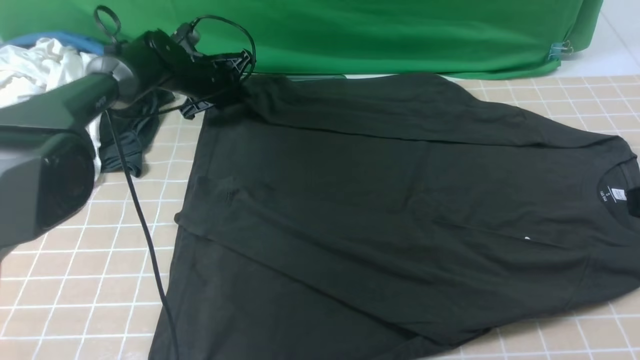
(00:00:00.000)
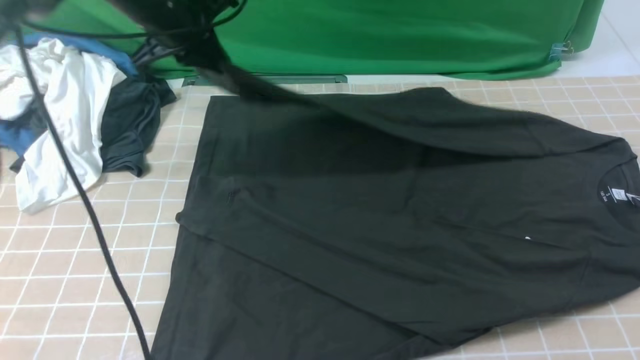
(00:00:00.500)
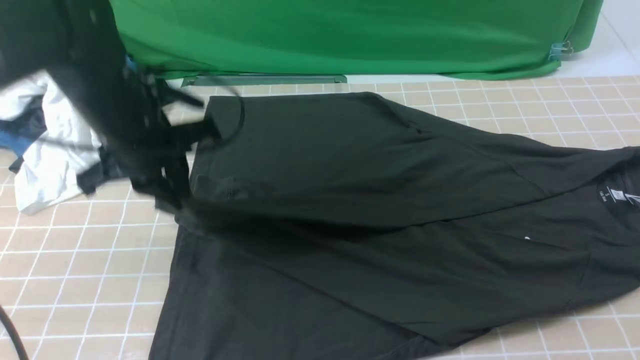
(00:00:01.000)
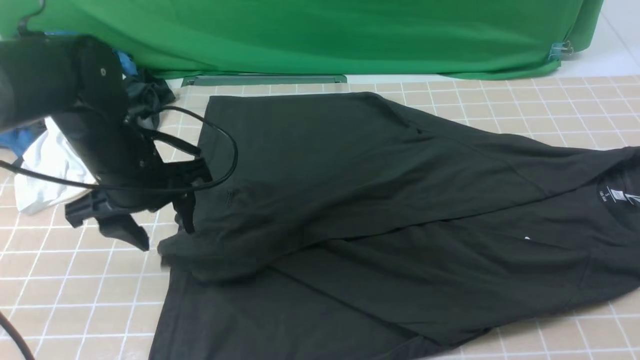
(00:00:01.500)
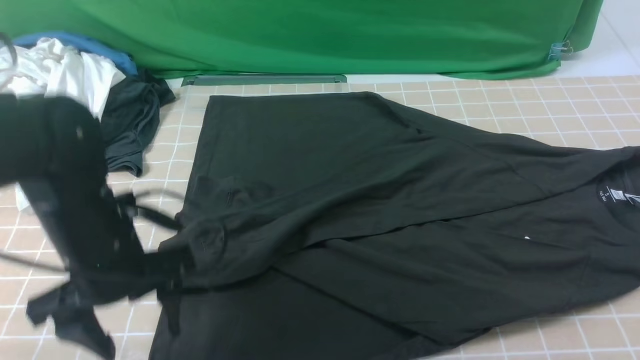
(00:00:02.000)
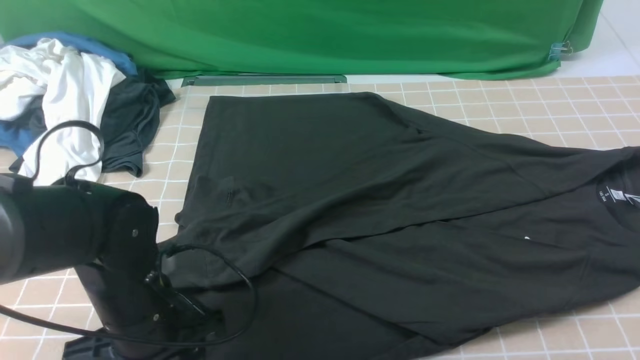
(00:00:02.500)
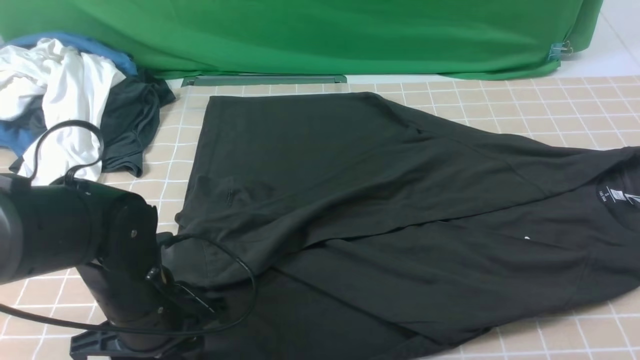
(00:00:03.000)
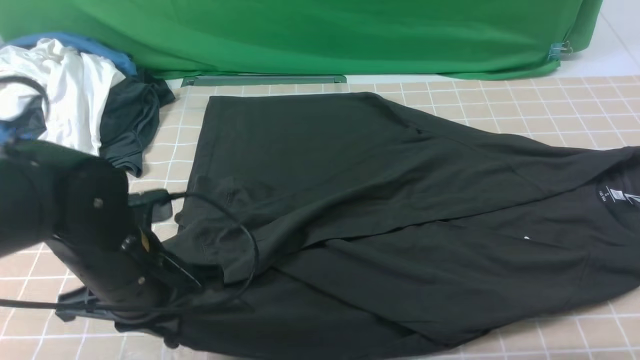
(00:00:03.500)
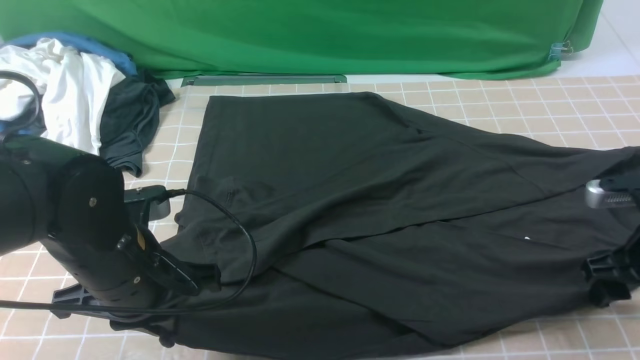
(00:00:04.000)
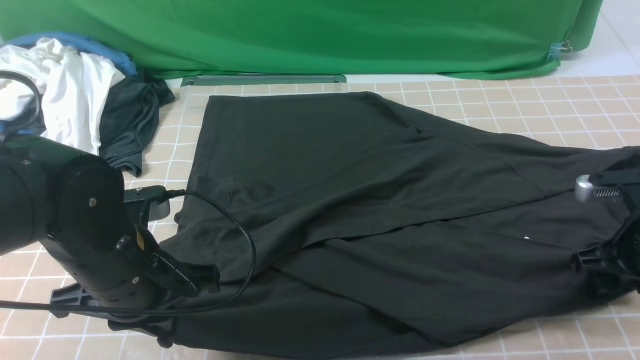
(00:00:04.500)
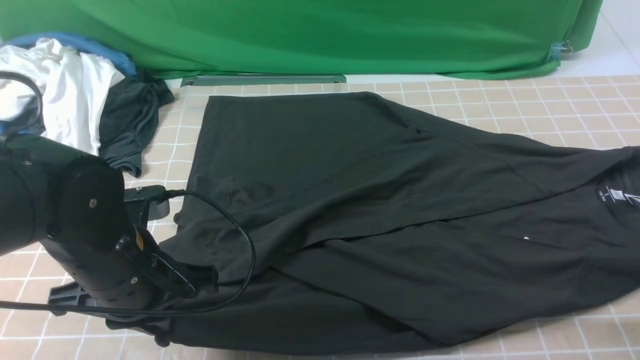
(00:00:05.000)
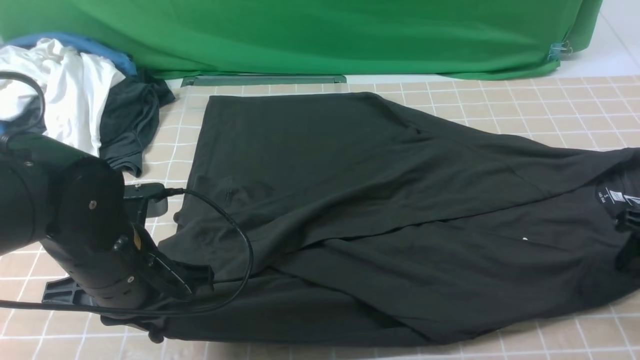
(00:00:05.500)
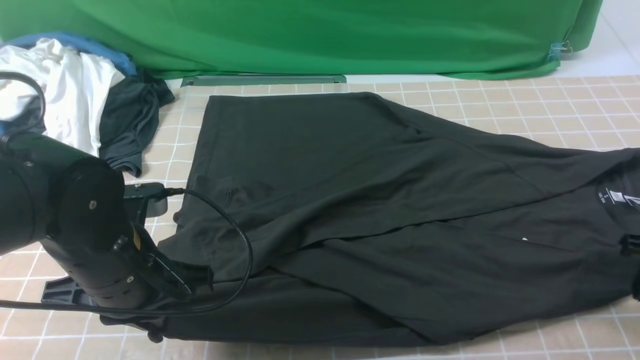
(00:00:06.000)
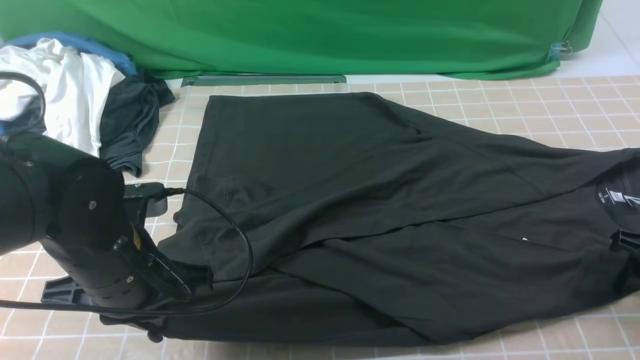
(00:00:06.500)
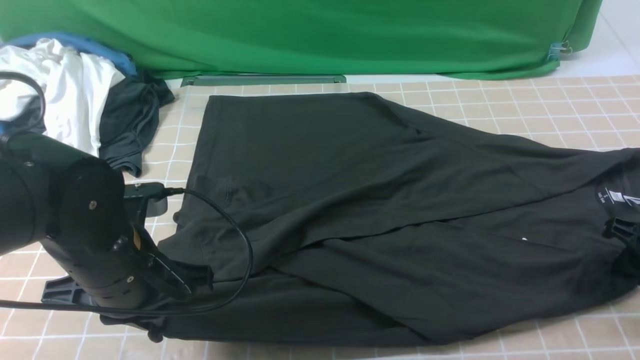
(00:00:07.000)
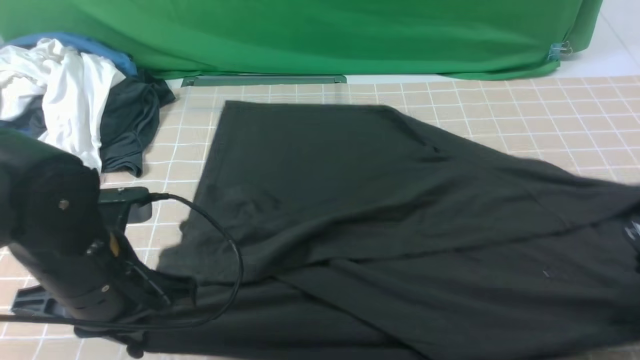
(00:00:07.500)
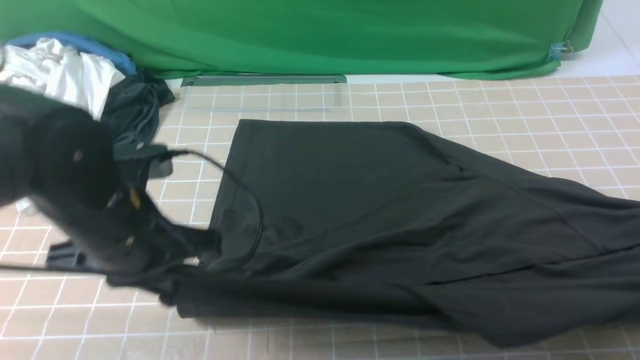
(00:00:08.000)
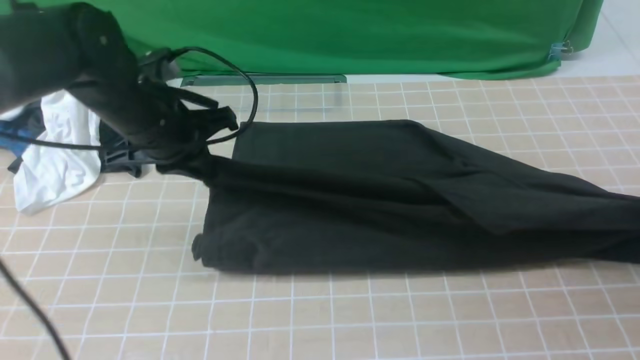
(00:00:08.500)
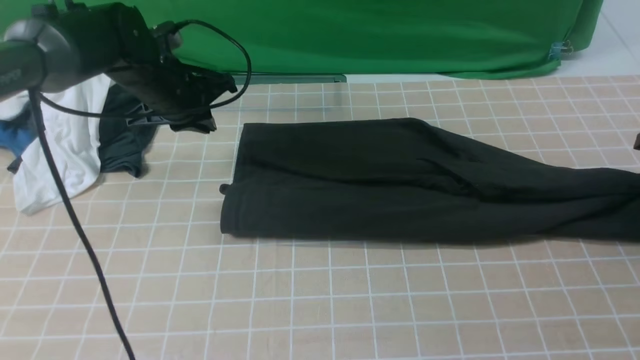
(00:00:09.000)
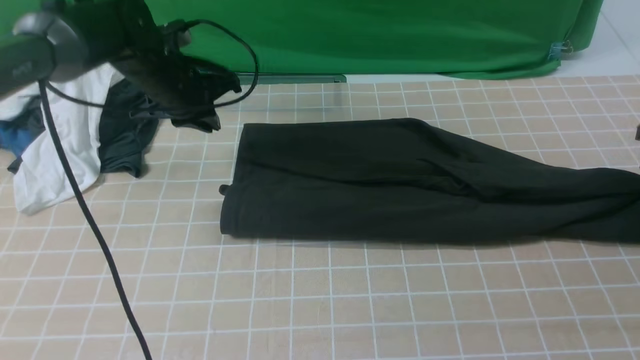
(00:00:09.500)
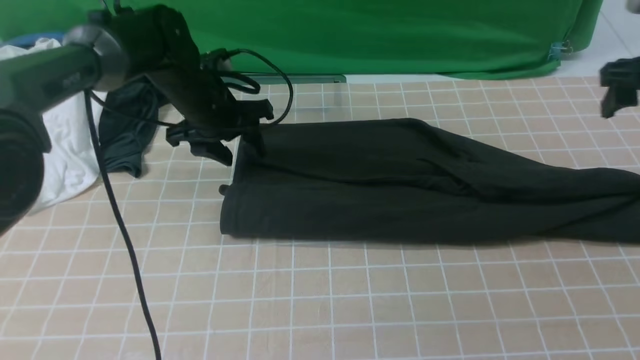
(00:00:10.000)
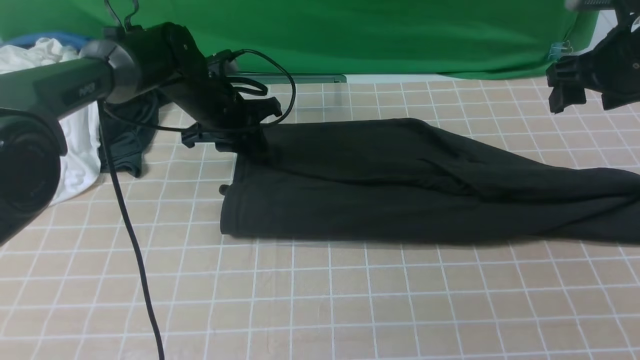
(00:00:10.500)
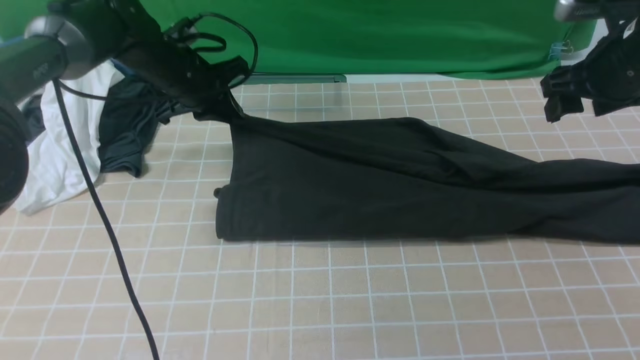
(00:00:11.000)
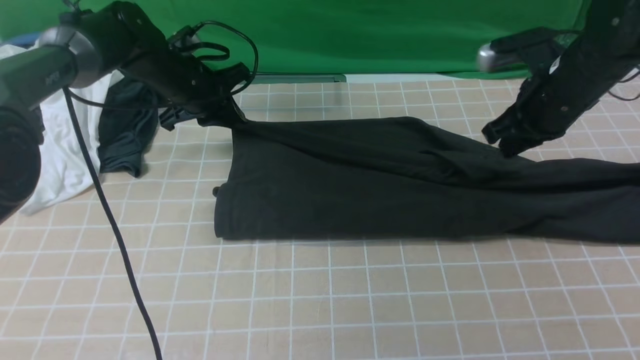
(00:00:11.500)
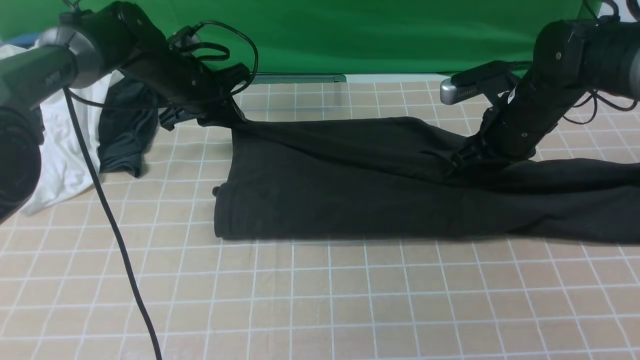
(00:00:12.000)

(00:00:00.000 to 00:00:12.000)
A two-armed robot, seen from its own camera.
Step, 00:00:00.000 - 00:00:01.500: use the left arm to drag and drop the cuff onto the cuff closest to the left arm.
Step, 00:00:02.000 - 00:00:07.000: use both arms simultaneously to clamp the lower edge of the clothing fabric.
00:00:00.000 - 00:00:02.000: The left gripper shifts some 30 cm backward, and opens up.
00:00:02.000 - 00:00:04.000: The right gripper travels downward and forward by about 15 cm, and opens up; the left gripper closes.
00:00:04.000 - 00:00:06.000: The right gripper ends up some 5 cm from where it was, and closes, then reopens.
00:00:06.000 - 00:00:08.000: The right gripper is displaced upward by about 5 cm, and closes.
00:00:08.000 - 00:00:10.000: The right gripper moves forward and upward, some 20 cm, and opens, while the left gripper heads forward, covering approximately 20 cm, and opens.
00:00:10.000 - 00:00:12.000: The right gripper travels to the left and downward by roughly 15 cm, and closes up; the left gripper shifts by approximately 5 cm, and closes up.

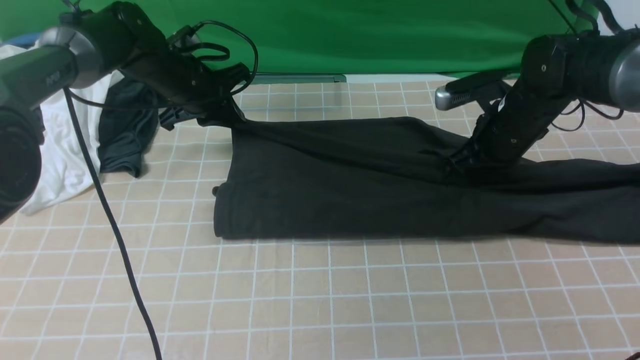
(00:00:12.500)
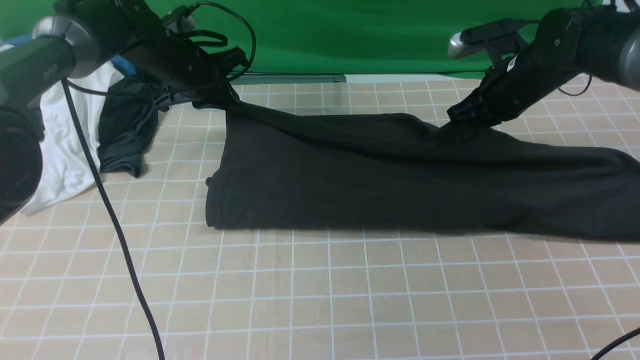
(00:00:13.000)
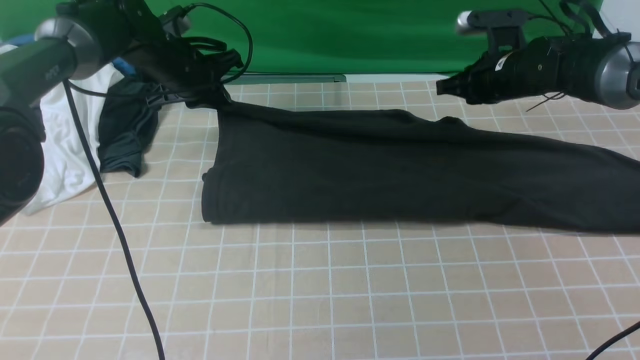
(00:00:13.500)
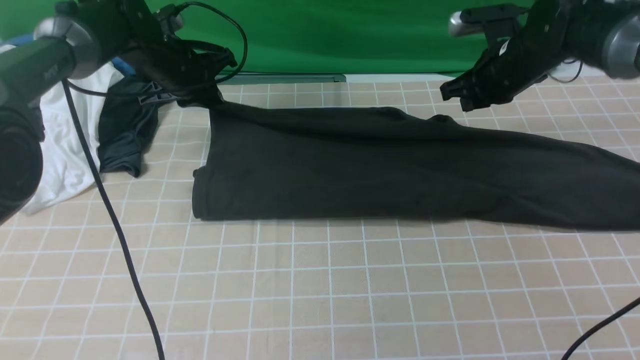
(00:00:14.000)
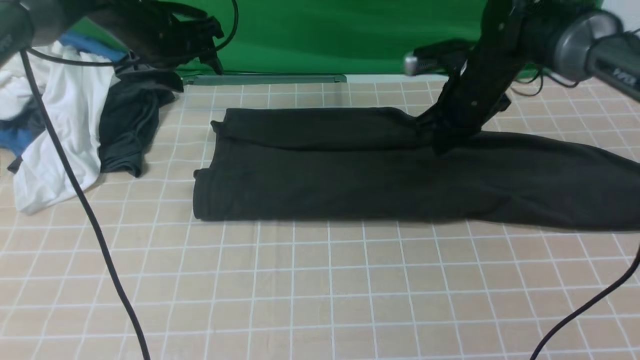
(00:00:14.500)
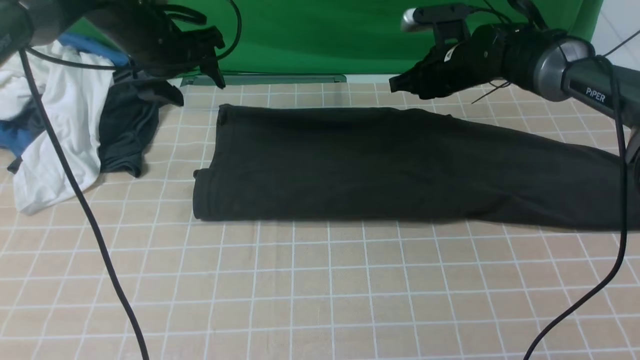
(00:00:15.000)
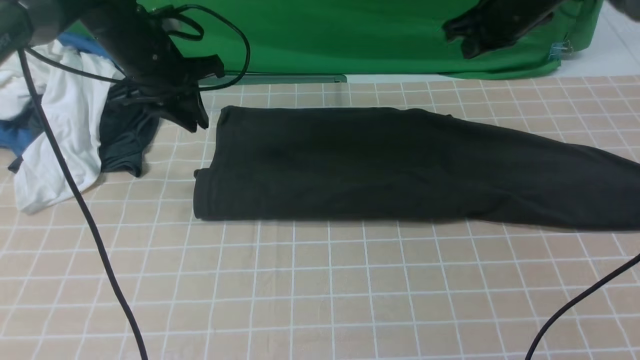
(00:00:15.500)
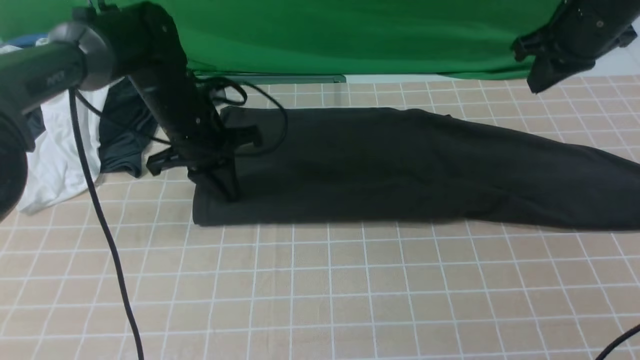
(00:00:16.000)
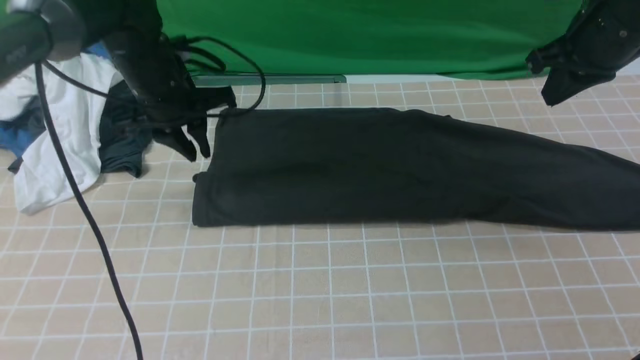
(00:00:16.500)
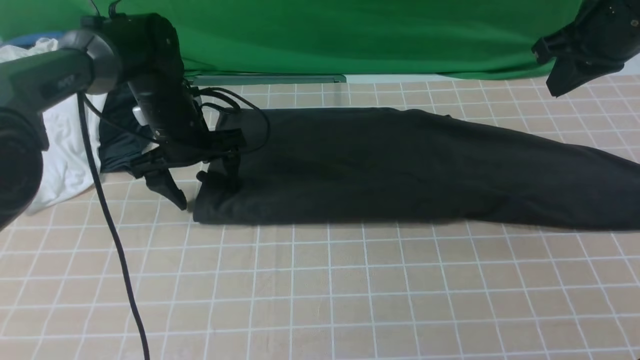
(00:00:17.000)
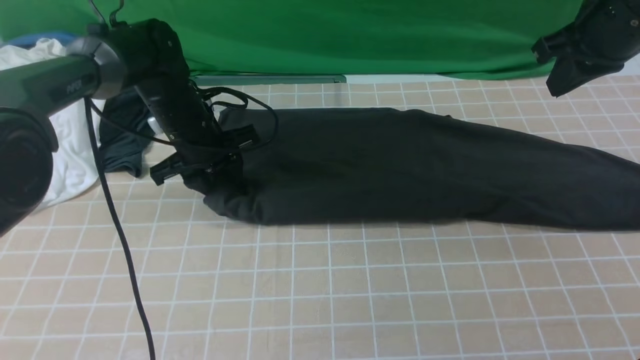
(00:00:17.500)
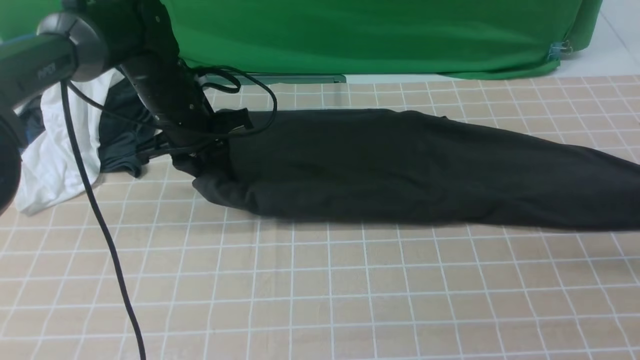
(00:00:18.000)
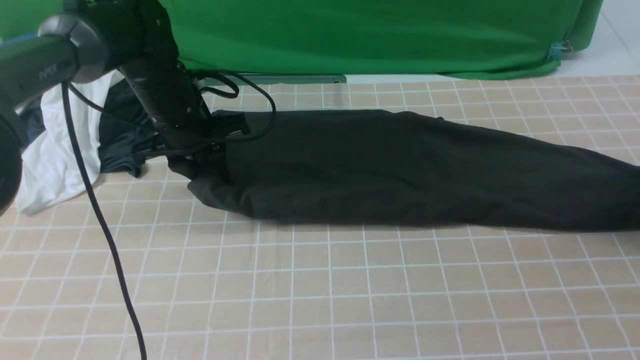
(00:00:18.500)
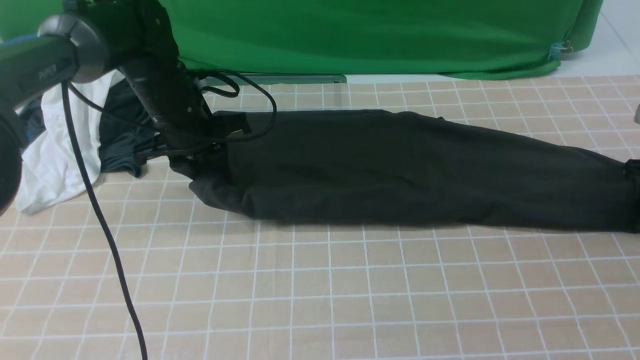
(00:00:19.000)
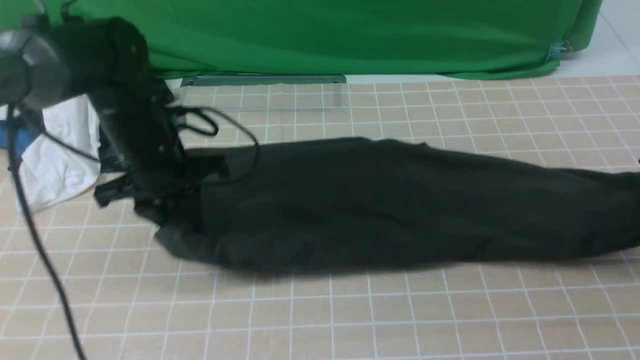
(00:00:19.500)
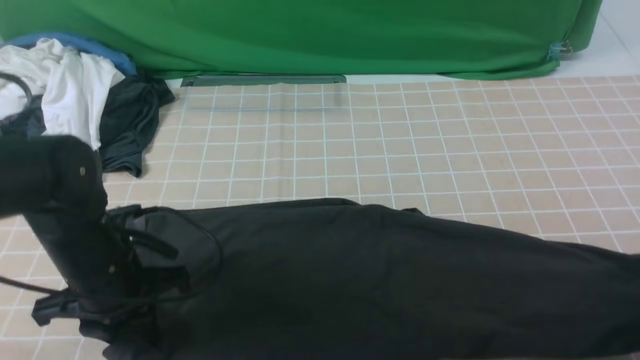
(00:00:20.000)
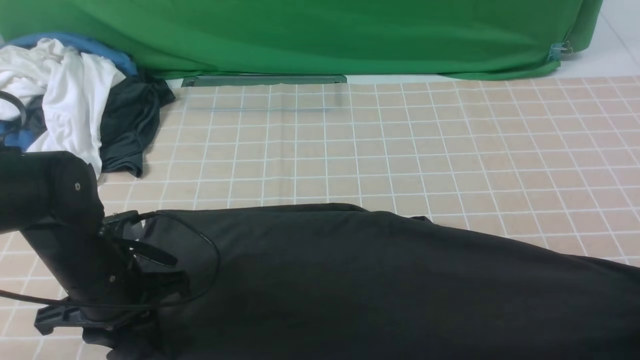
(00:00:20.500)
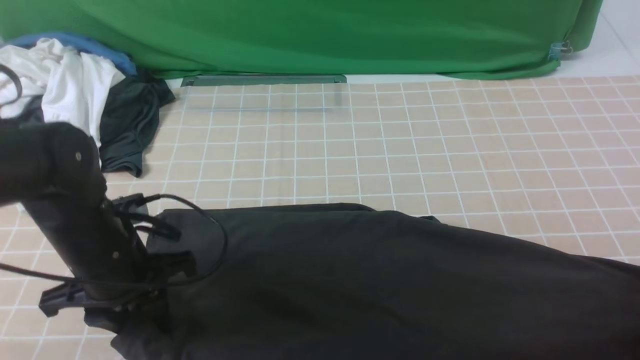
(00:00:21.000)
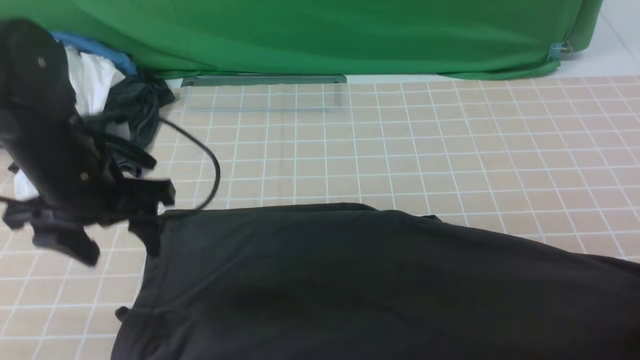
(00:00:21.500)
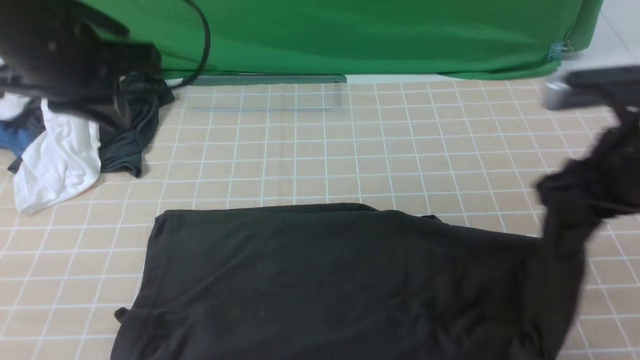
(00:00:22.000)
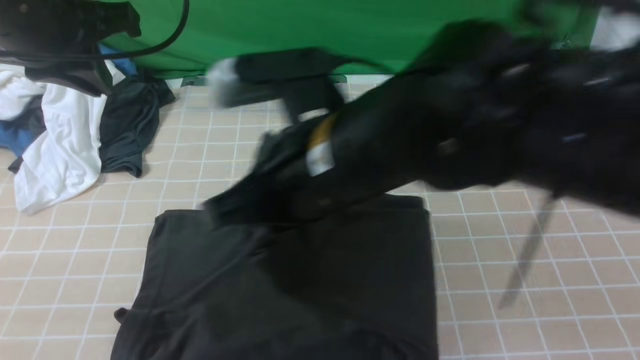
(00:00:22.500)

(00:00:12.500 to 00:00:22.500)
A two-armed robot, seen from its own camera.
Step, 00:00:14.500 - 00:00:19.000: use the right arm to clamp the right edge of the fabric.
00:00:12.500 - 00:00:14.500: The right gripper heads forward, covering approximately 5 cm. Meanwhile the left gripper travels upward by some 5 cm, and opens its fingers.
00:00:14.500 - 00:00:16.500: The left gripper heads backward, covering roughly 5 cm, and closes. The right gripper moves upward, to the right and backward, some 15 cm.
00:00:16.500 - 00:00:18.500: The right gripper is displaced to the right and downward by some 20 cm, and opens its fingers. Meanwhile the left gripper opens, then closes once more.
00:00:18.500 - 00:00:20.500: Both grippers move backward, roughly 15 cm. The right gripper closes.
00:00:20.500 - 00:00:22.500: The right gripper goes approximately 40 cm to the left; the left gripper goes roughly 25 cm upward, and opens and closes again.
